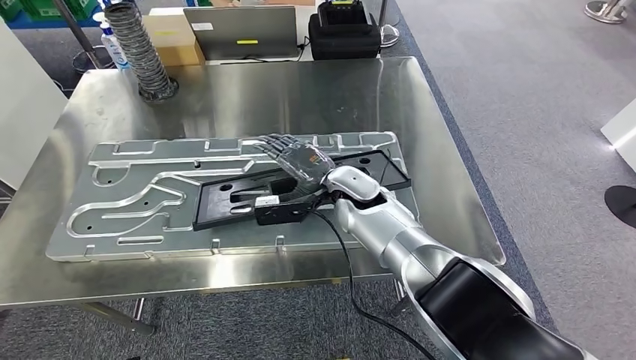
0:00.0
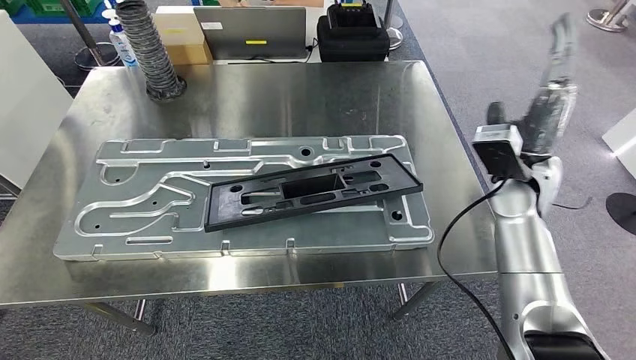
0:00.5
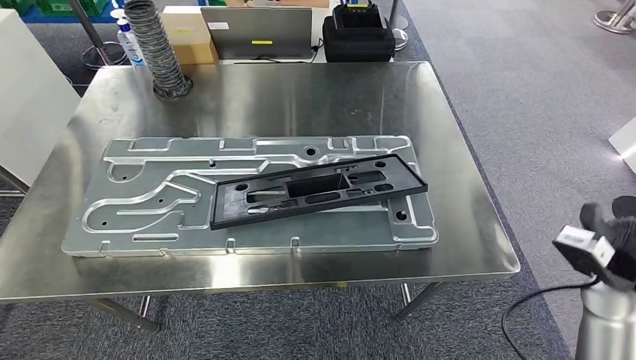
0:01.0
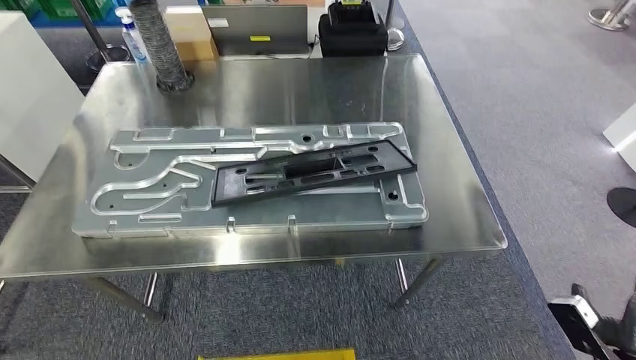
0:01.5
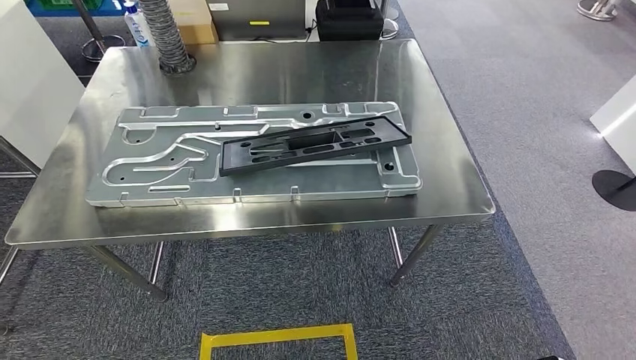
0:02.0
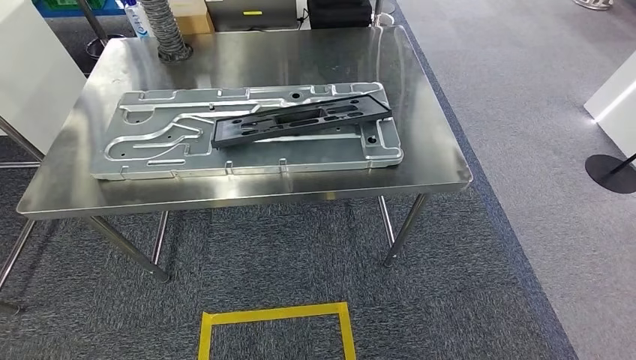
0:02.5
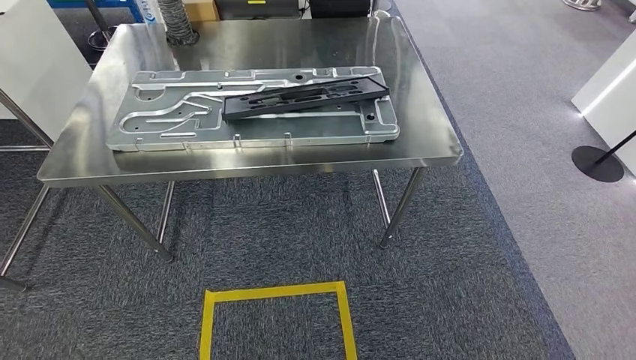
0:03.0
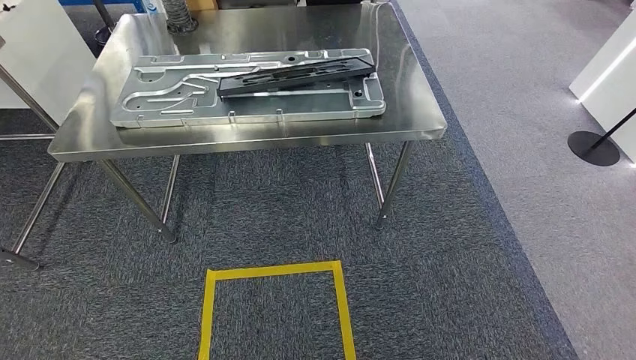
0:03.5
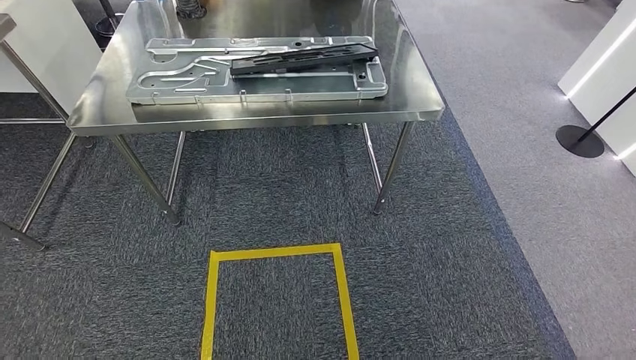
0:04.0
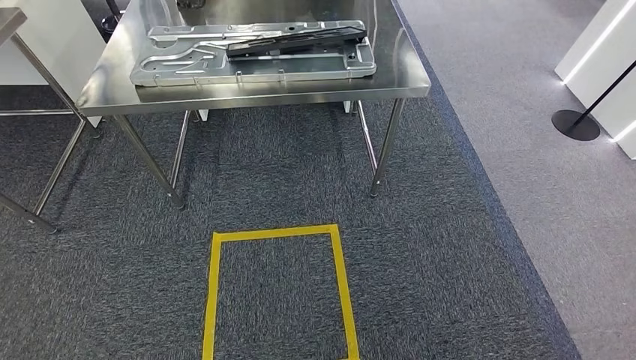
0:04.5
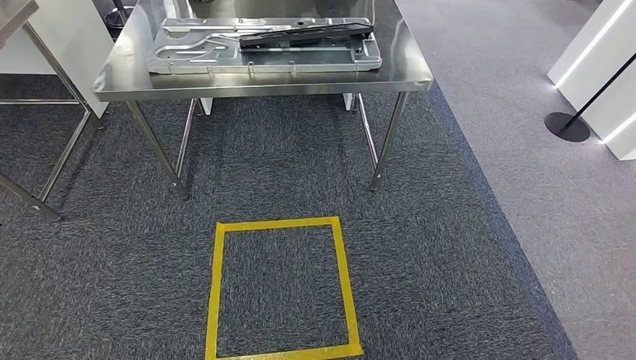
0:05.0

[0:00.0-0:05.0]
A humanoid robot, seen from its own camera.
Step, 0:02.0 to 0:05.0: Move to the initial position of the shelf.
